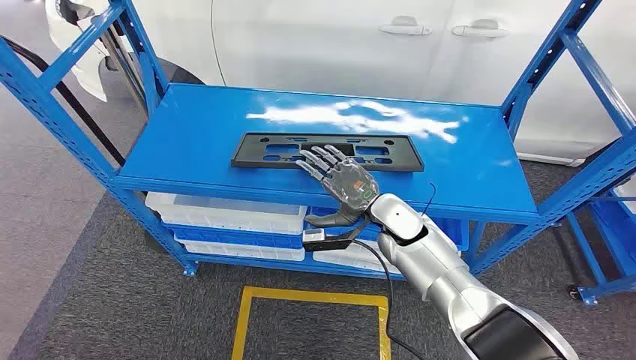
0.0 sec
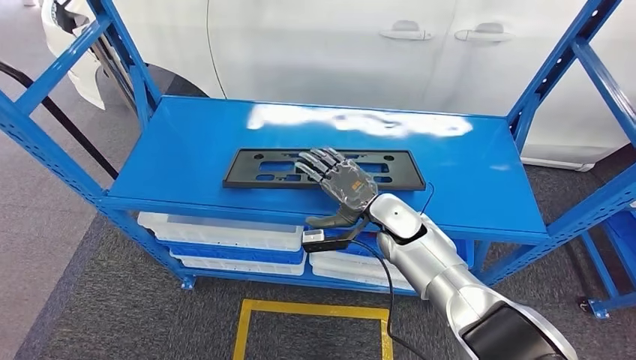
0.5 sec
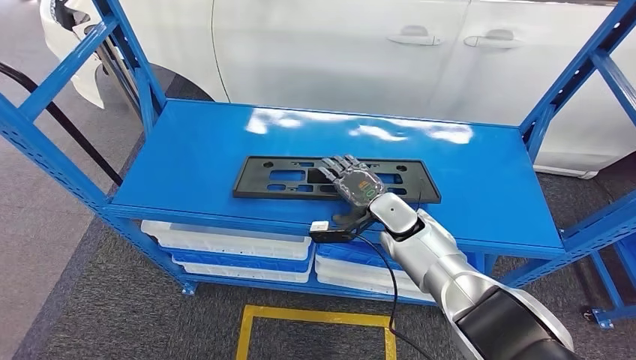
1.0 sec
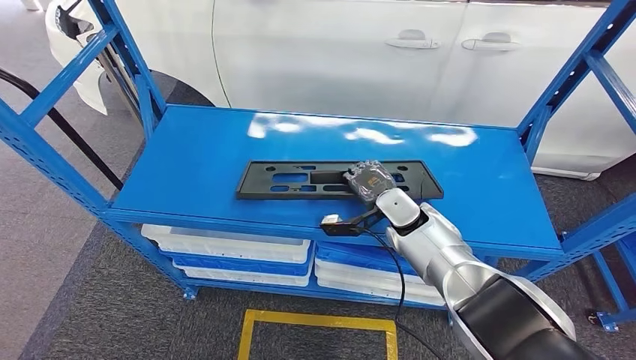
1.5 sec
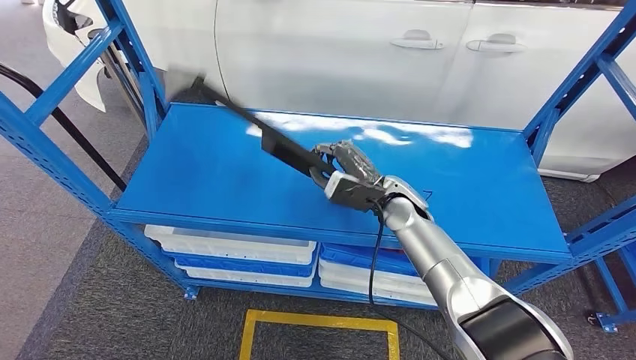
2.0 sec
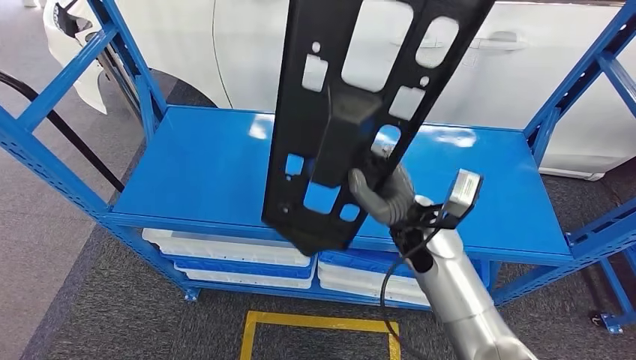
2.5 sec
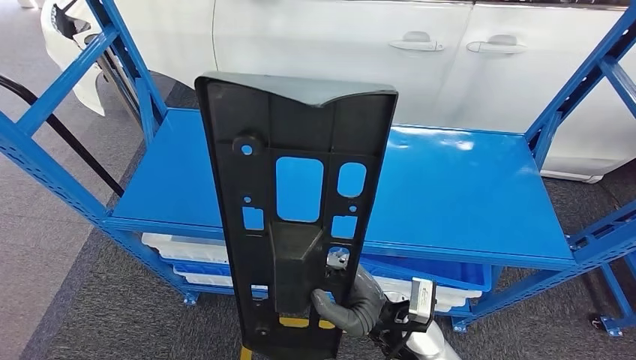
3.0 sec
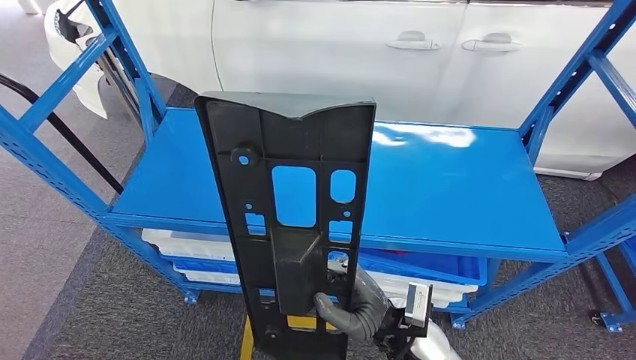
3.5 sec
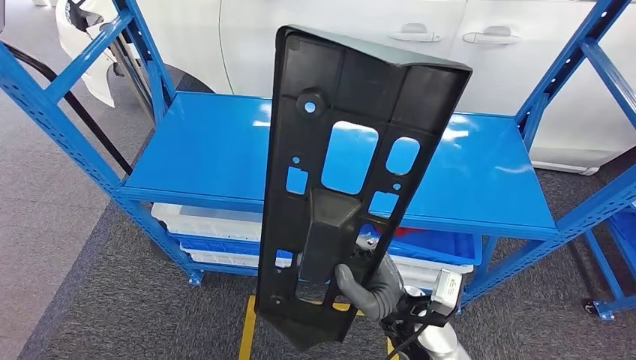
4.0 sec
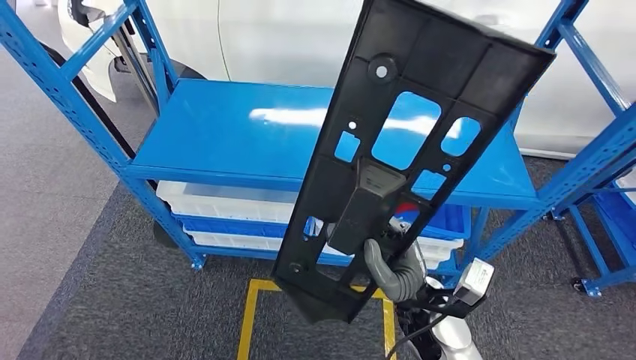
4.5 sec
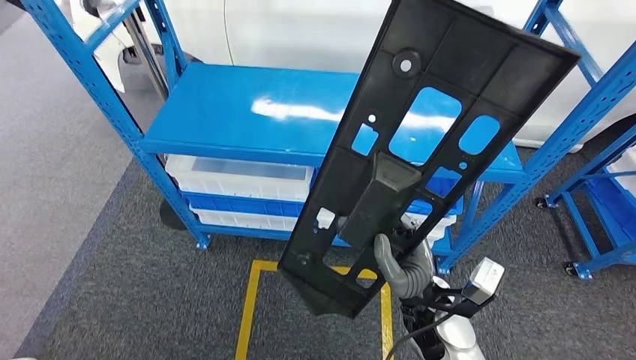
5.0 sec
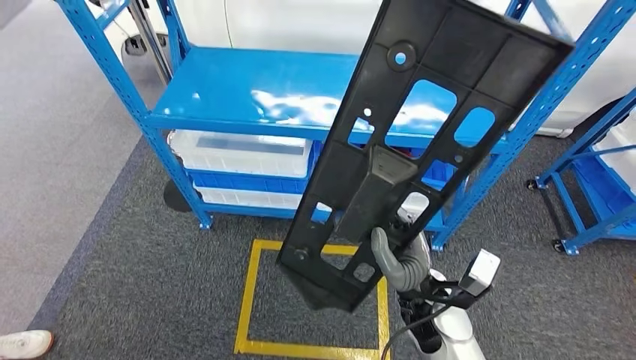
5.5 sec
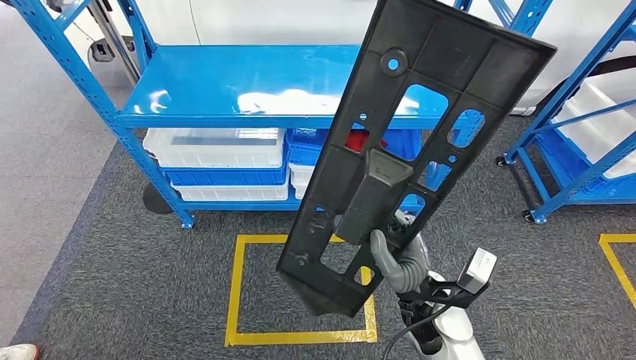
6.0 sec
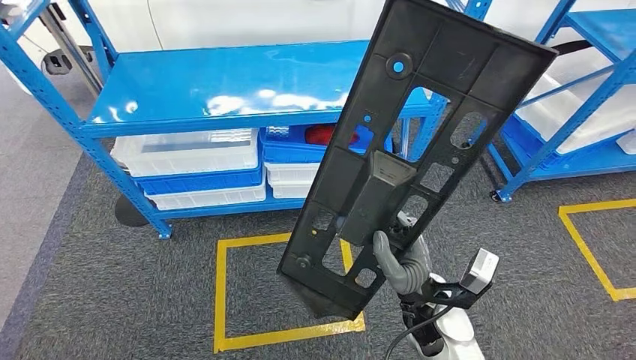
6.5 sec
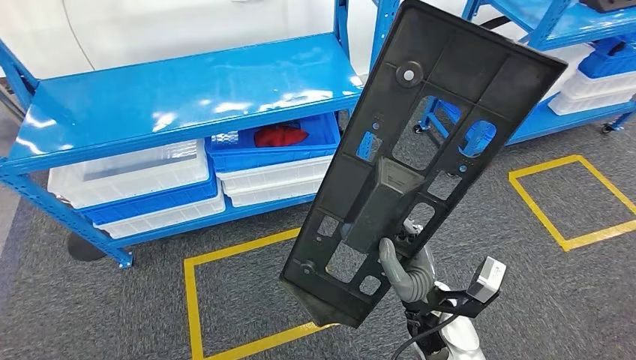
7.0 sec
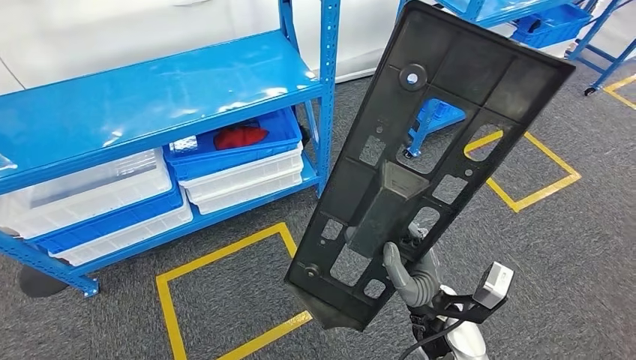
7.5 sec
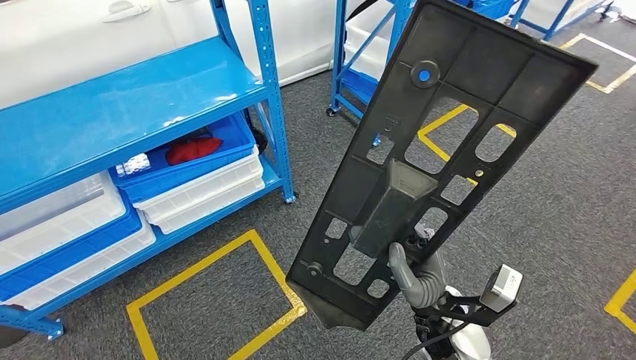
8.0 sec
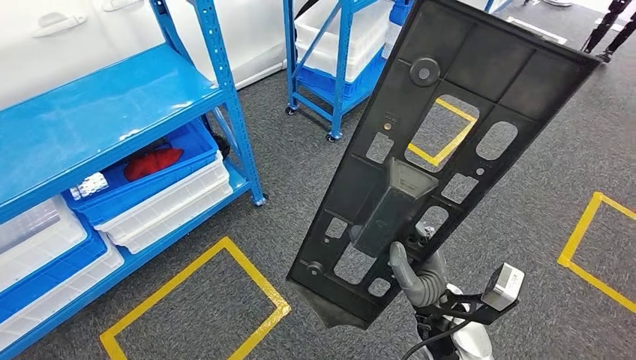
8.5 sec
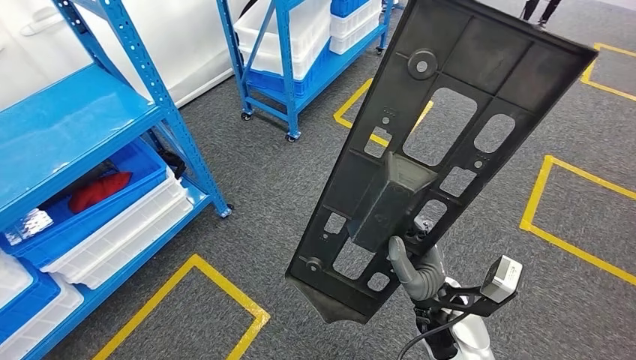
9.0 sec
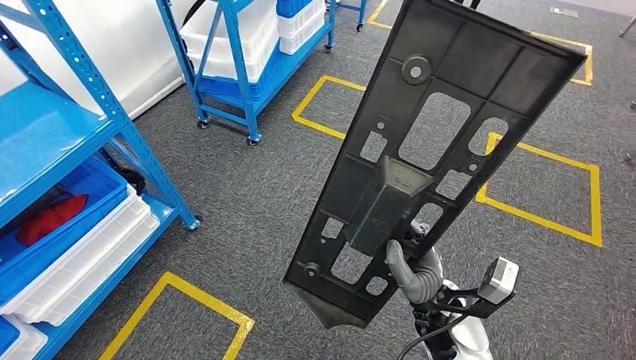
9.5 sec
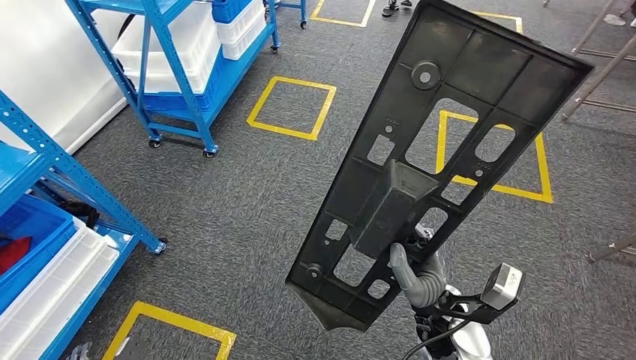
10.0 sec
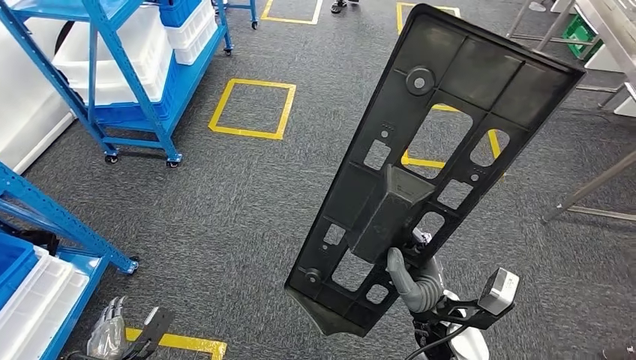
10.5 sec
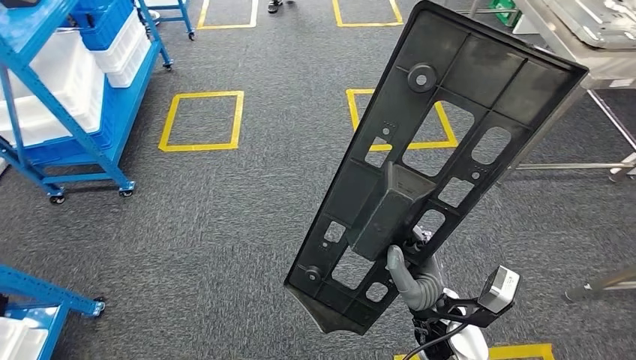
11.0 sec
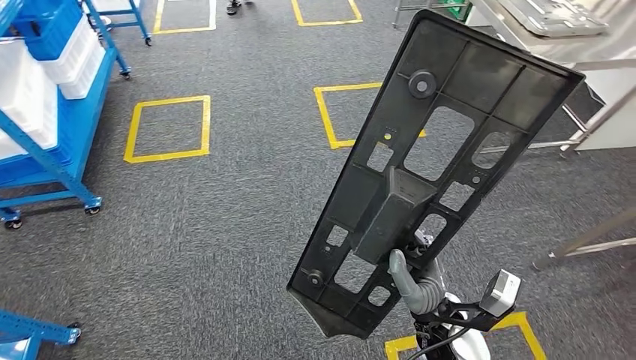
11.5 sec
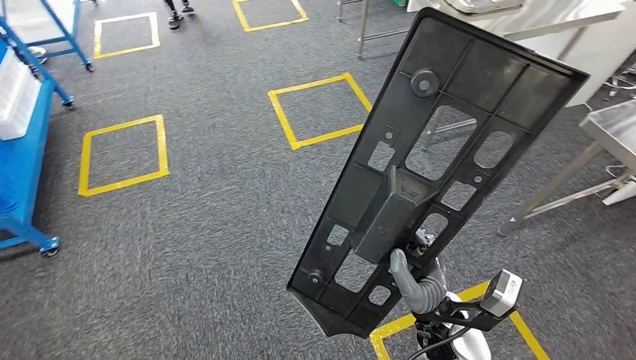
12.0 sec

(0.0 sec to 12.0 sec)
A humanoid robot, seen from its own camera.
Step, 0.0 sec - 3.5 sec: Pick up the large material from the shelf.

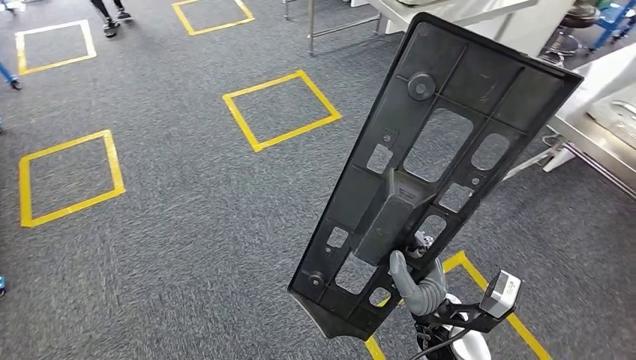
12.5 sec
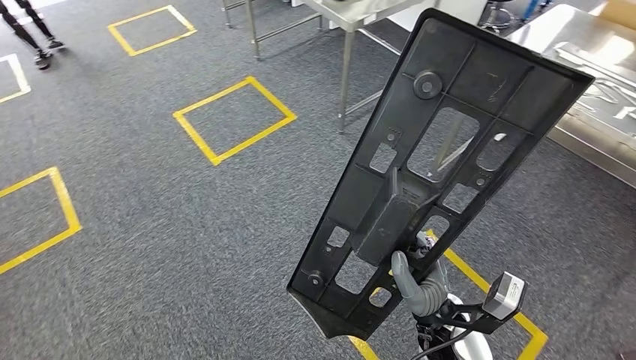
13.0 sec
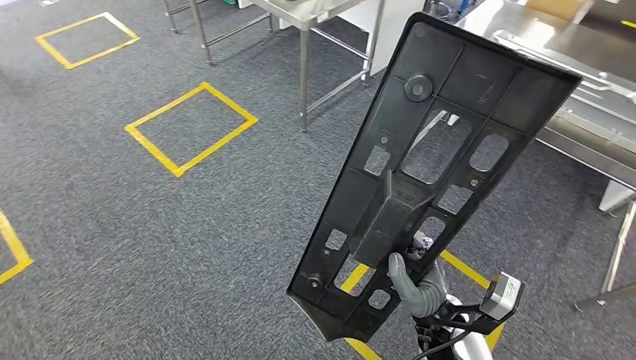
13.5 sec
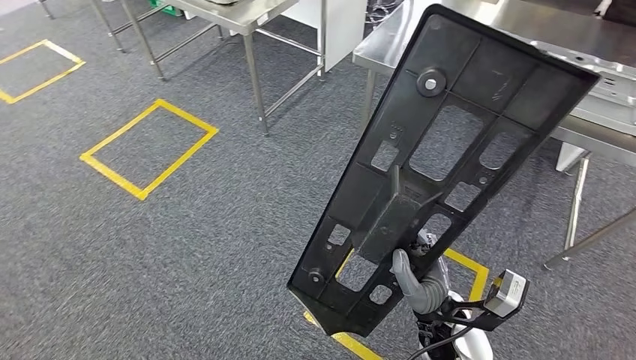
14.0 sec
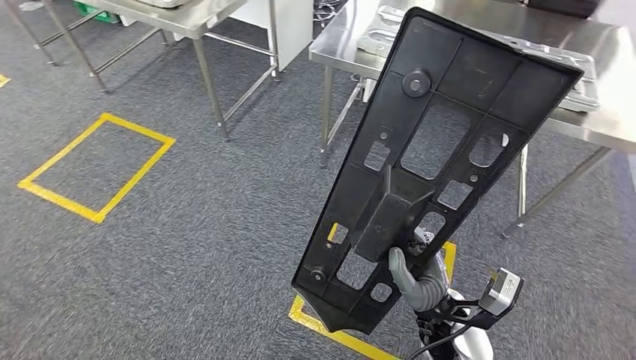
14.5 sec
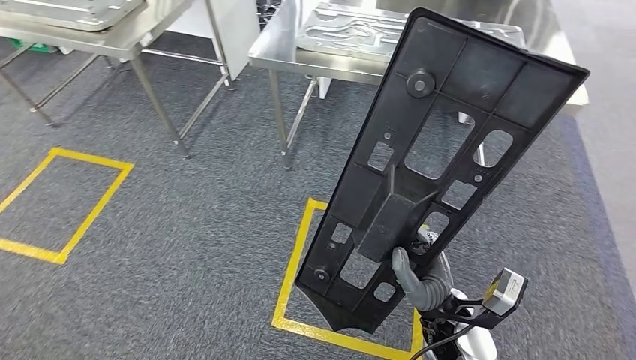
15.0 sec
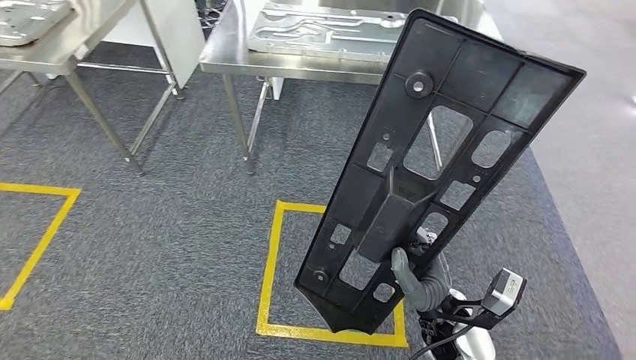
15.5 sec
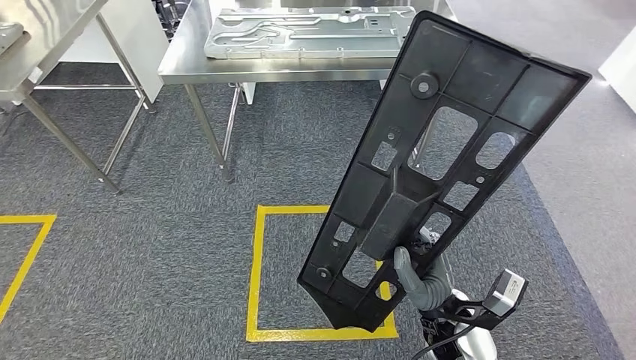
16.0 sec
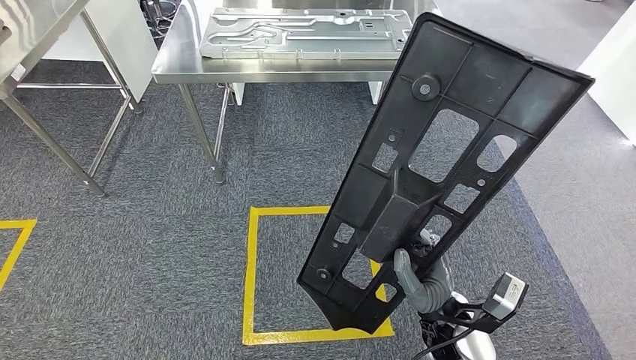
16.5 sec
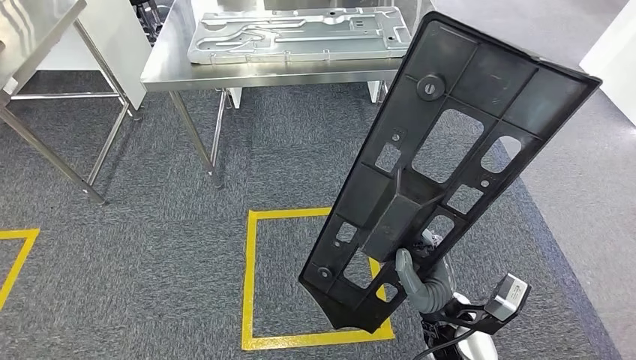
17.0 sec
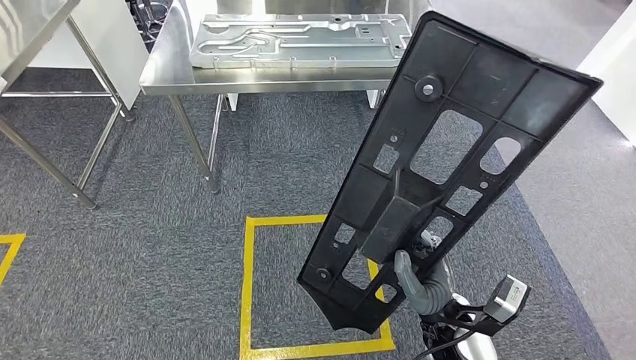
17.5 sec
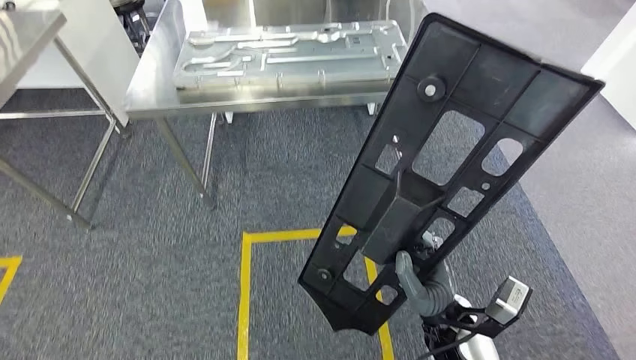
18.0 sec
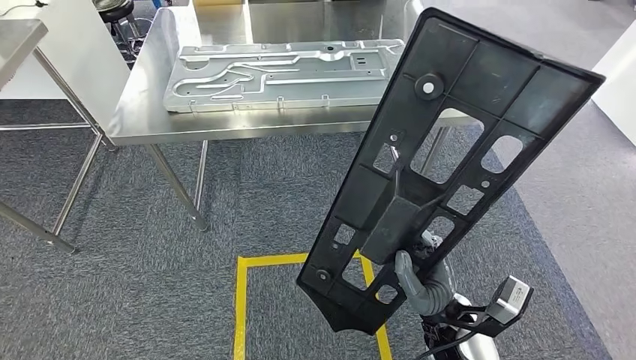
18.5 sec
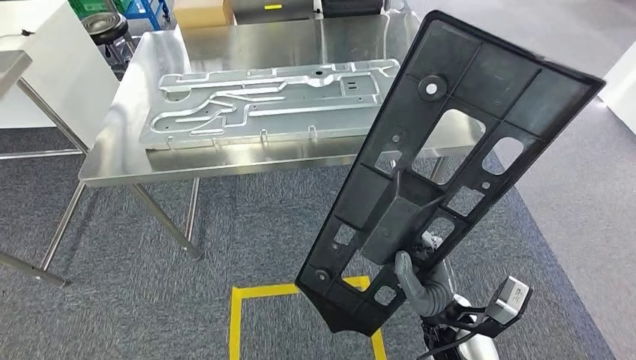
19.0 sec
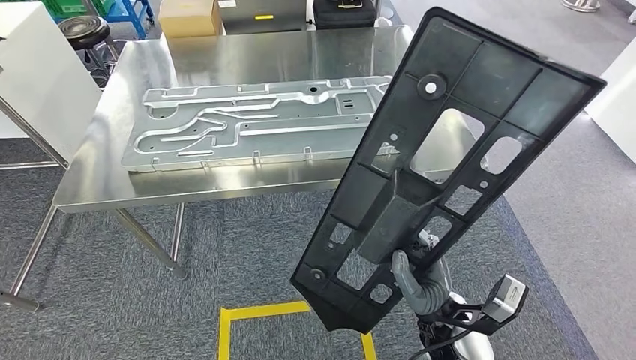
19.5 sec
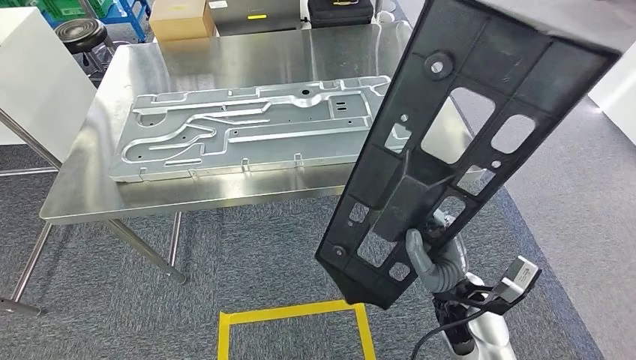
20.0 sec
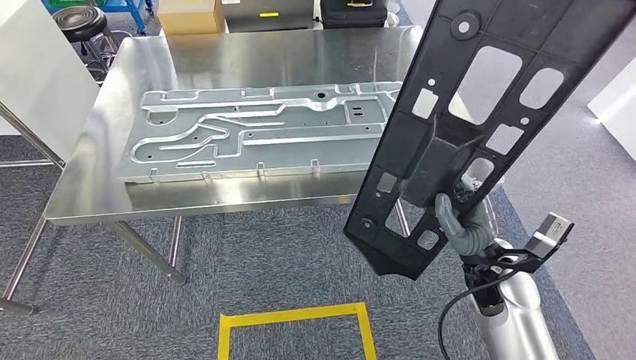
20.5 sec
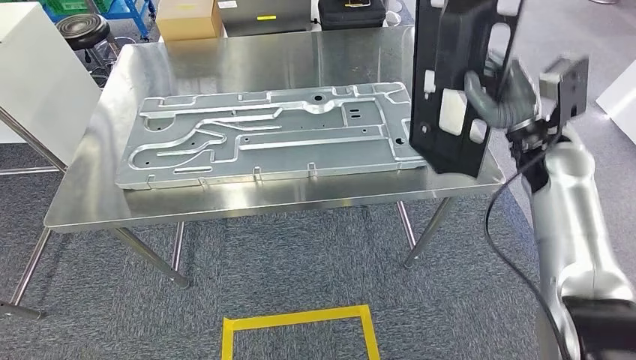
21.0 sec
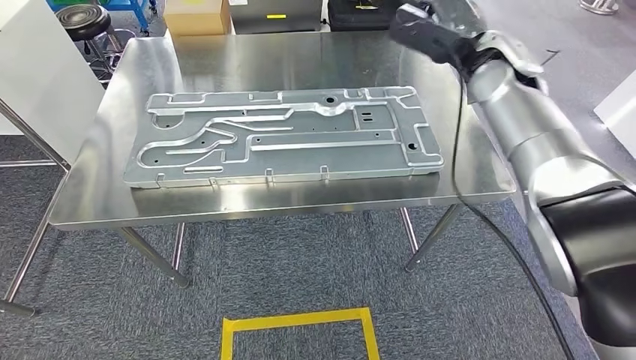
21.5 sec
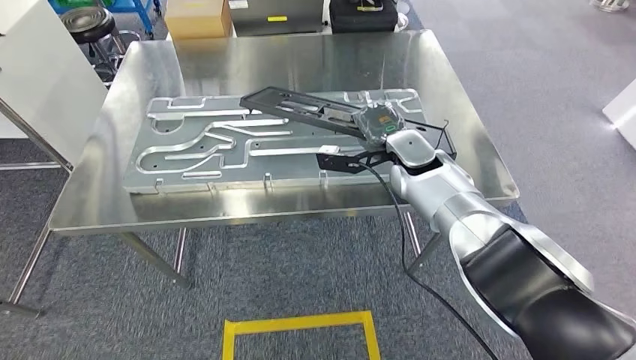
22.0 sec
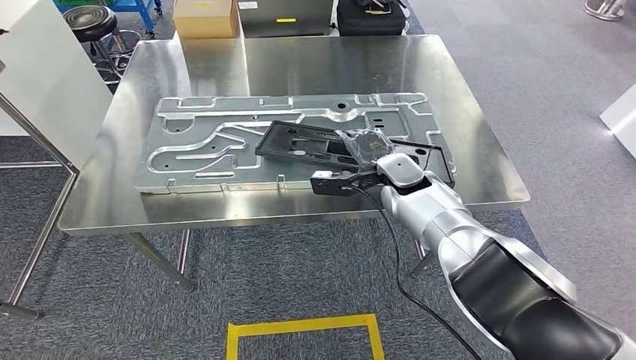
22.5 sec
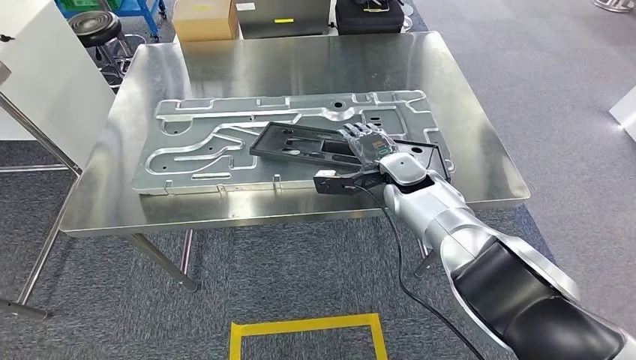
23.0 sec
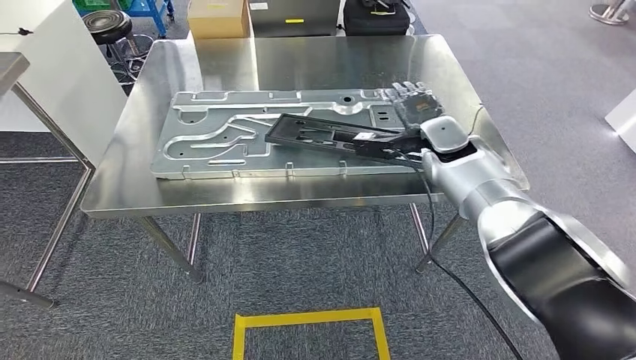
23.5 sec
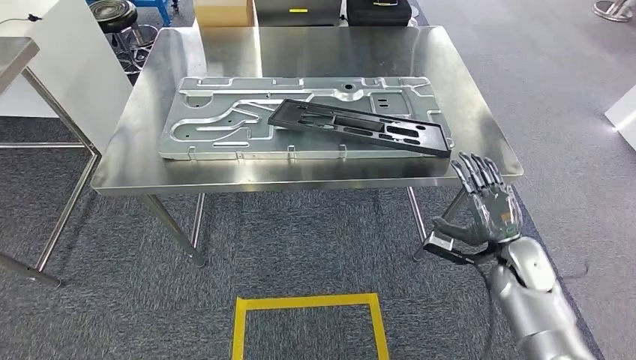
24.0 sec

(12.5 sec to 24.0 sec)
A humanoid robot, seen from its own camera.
Step, 12.5 sec - 20.0 sec: Move the large material to the workbench.
